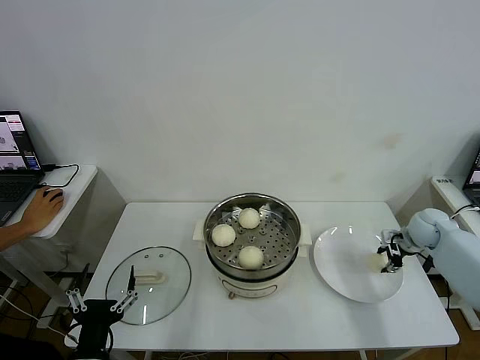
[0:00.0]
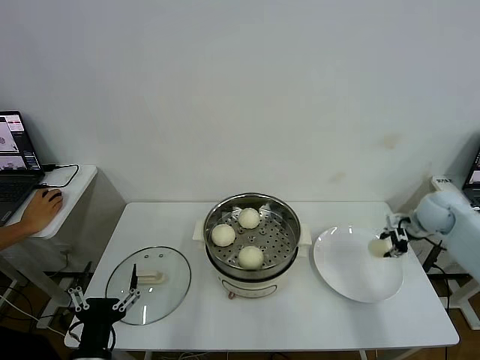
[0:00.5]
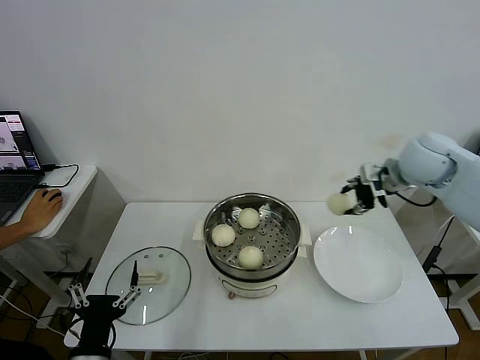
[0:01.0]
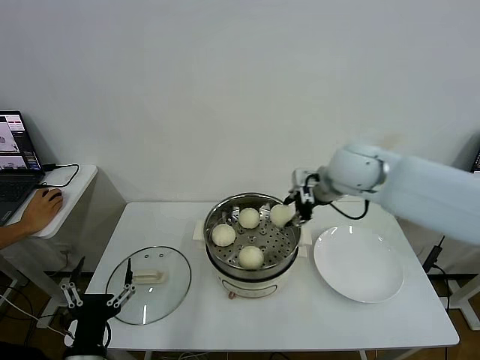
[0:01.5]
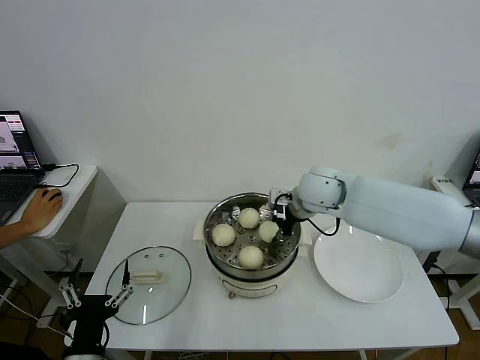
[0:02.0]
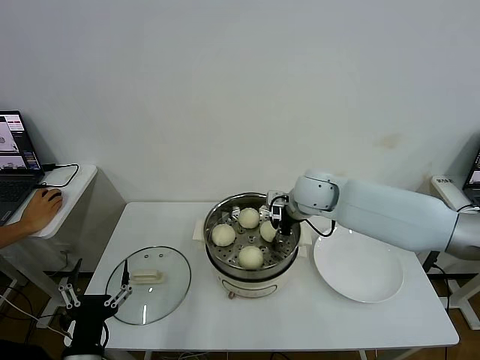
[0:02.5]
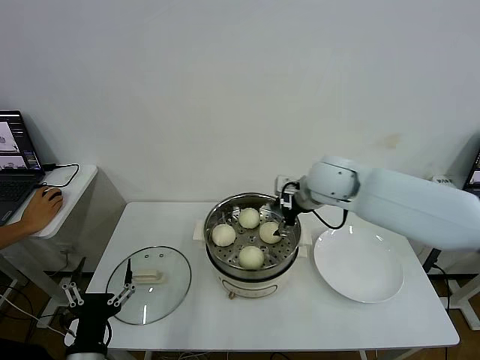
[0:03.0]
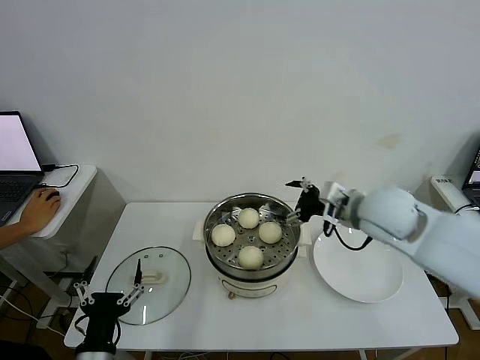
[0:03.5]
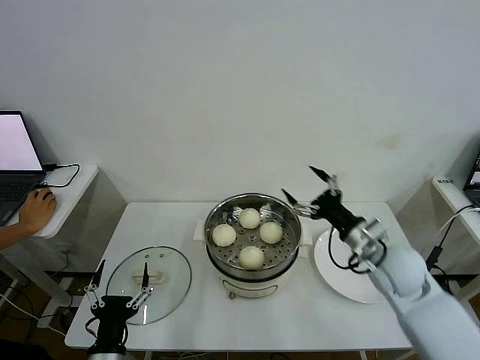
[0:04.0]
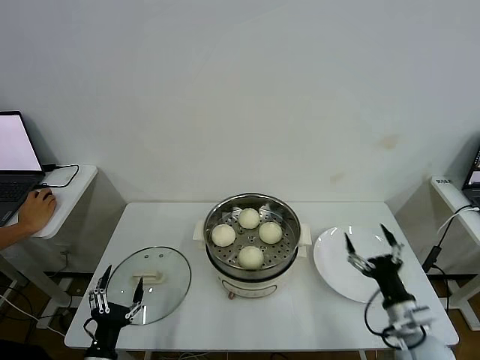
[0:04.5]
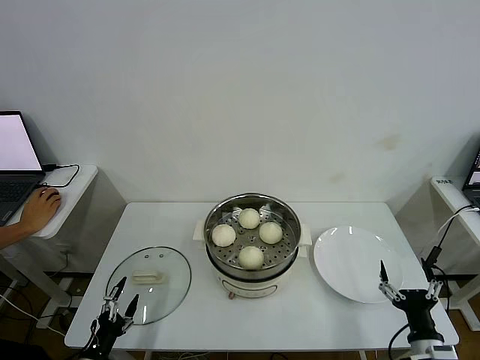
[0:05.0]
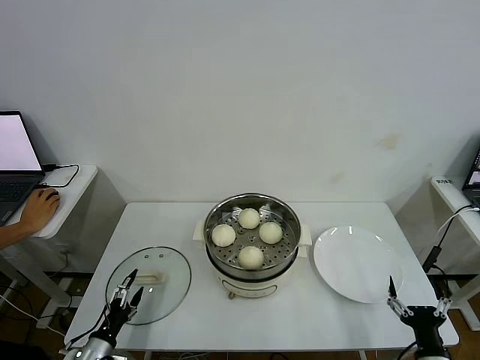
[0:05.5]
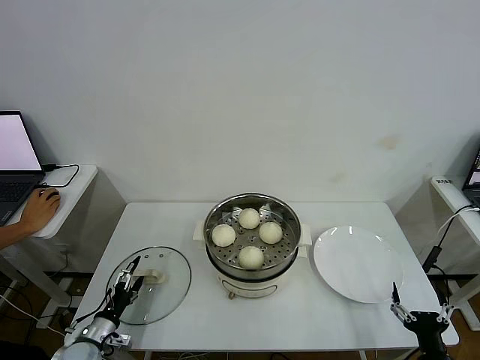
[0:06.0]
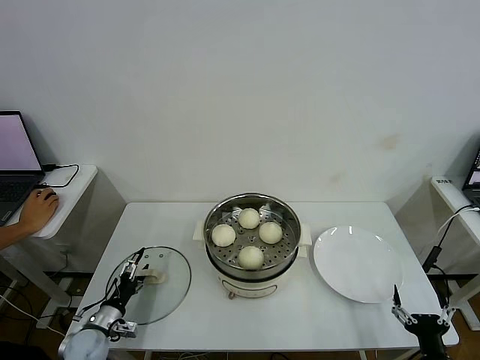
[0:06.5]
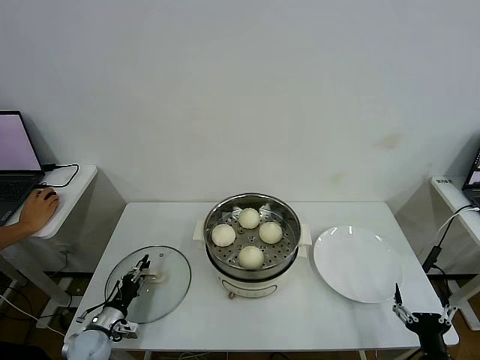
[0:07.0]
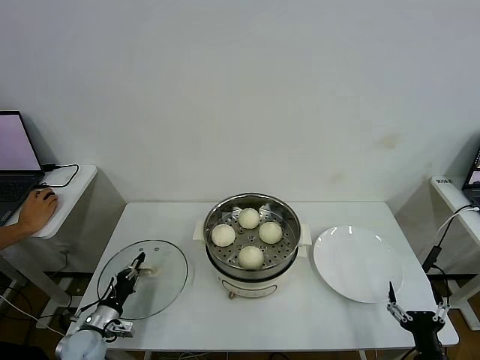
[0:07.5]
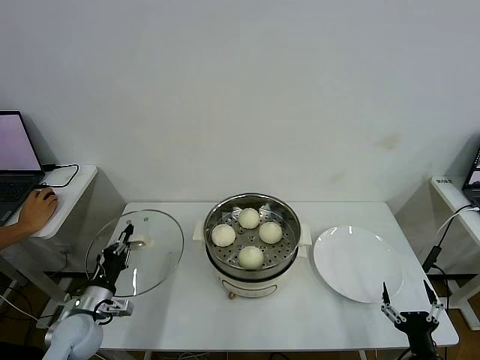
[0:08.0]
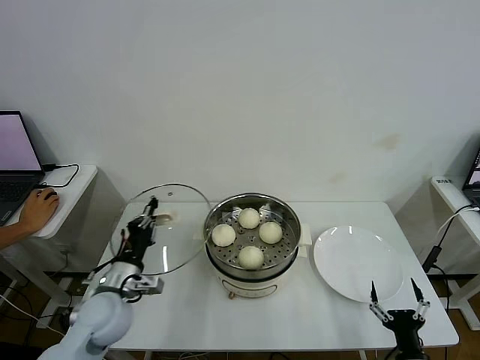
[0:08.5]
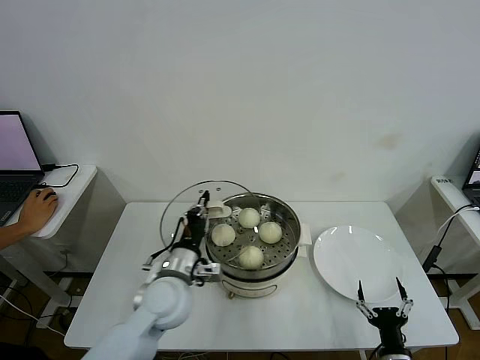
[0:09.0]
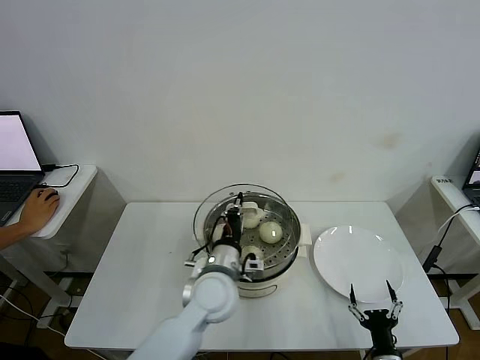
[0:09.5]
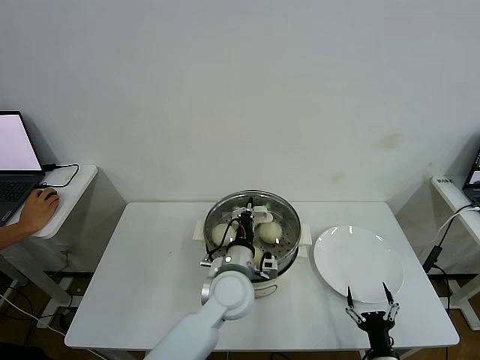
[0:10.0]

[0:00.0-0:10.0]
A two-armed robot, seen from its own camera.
Step, 0:00.5 to 0:02.5: Place the baozi on the steamer with right gripper.
Step, 0:03.5 to 0:07.0: Grasp the pot lid with left gripper.
0:00.0 to 0:02.0: The right gripper heads to the left and upward, covering about 35 cm.
0:02.0 to 0:04.0: The right gripper is displaced backward, to the right and downward by approximately 20 cm, and opens.
0:04.0 to 0:06.0: The left gripper is displaced to the left, downward and forward by approximately 20 cm. The right gripper shifts approximately 30 cm backward and downward.
0:06.0 to 0:08.0: The left gripper moves upward, some 10 cm, and closes its fingers.
0:08.0 to 0:10.0: The right gripper heads downward and to the left, covering approximately 10 cm; the left gripper moves to the right, roughly 35 cm.

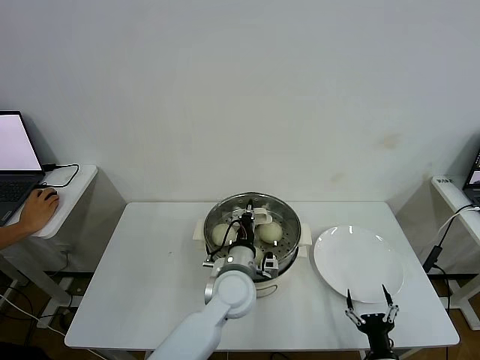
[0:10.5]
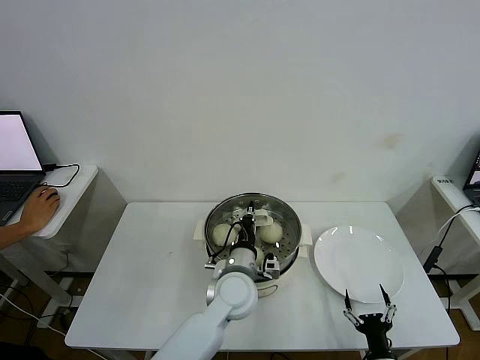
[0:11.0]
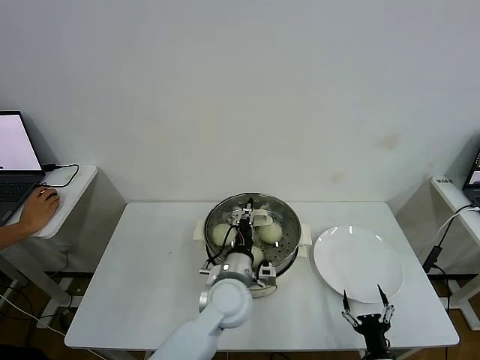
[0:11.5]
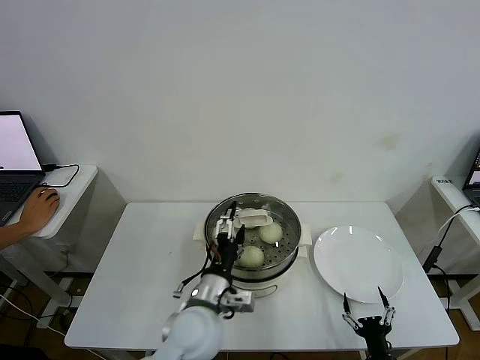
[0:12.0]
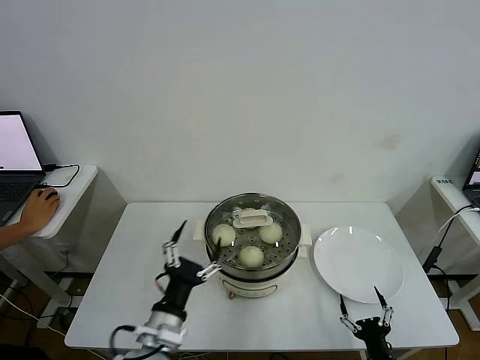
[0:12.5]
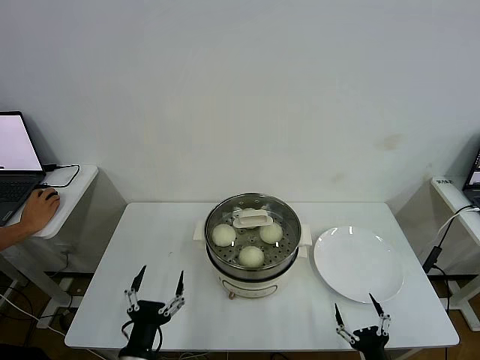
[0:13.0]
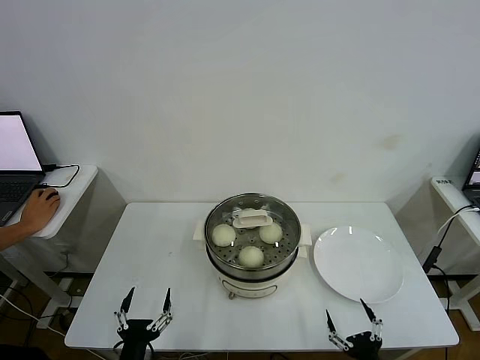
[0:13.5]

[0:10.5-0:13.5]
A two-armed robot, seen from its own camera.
0:10.5 to 0:12.0: The left gripper is displaced backward and to the left by approximately 10 cm, and opens.
0:12.0 to 0:13.5: The right gripper heads upward, covering about 5 cm. The left gripper heads to the left, backward and downward, covering roughly 25 cm.
